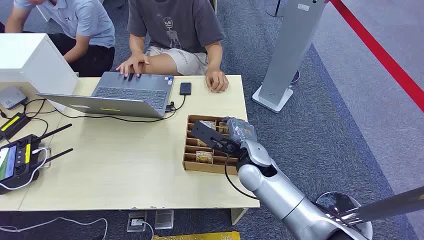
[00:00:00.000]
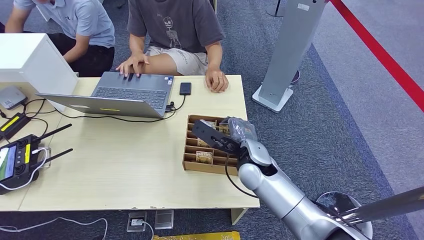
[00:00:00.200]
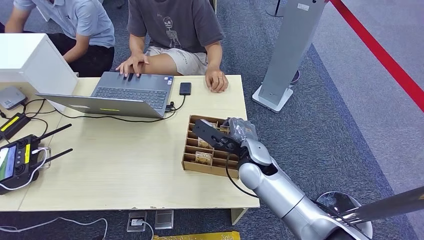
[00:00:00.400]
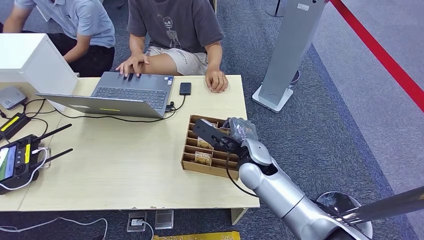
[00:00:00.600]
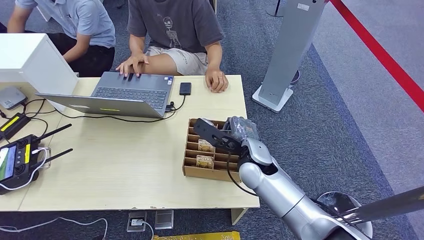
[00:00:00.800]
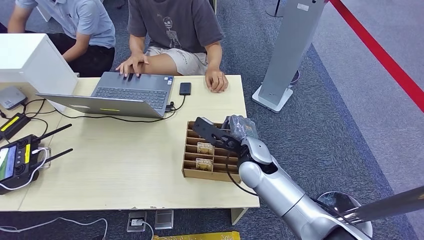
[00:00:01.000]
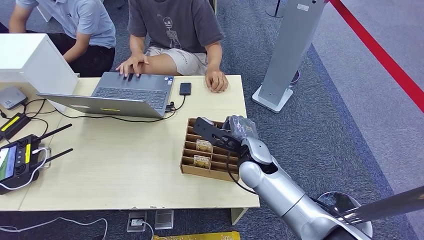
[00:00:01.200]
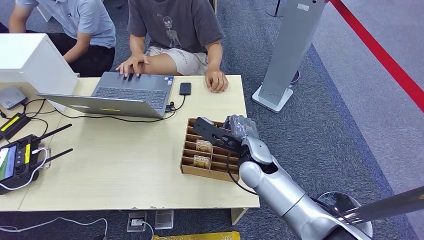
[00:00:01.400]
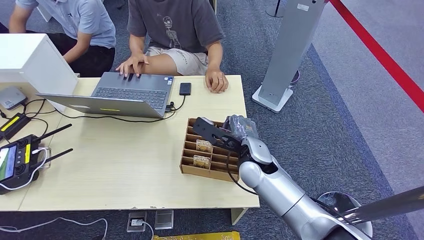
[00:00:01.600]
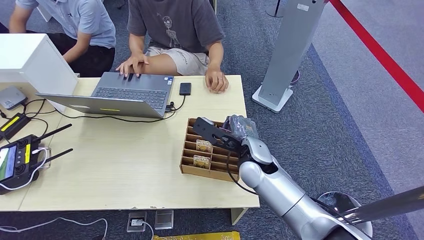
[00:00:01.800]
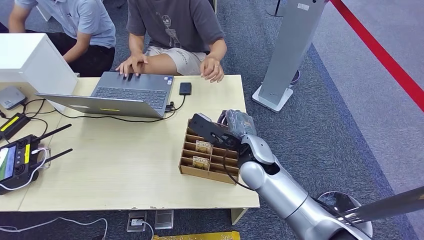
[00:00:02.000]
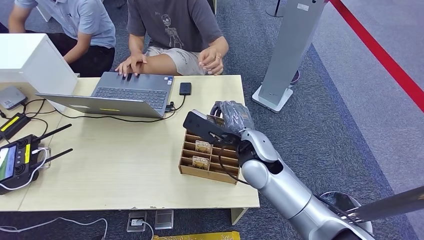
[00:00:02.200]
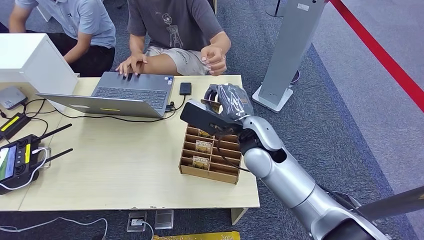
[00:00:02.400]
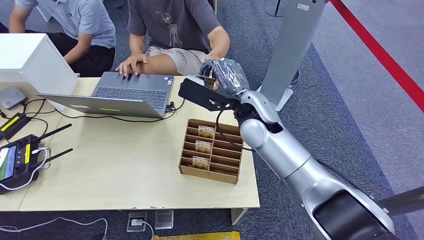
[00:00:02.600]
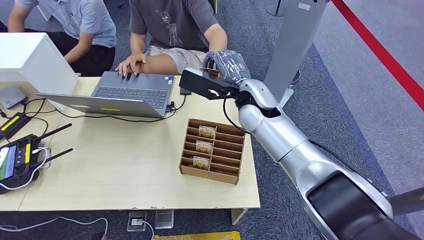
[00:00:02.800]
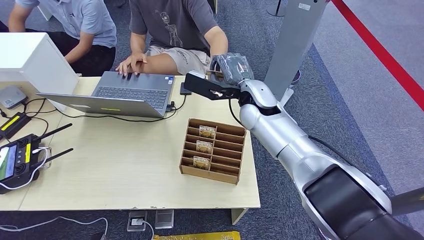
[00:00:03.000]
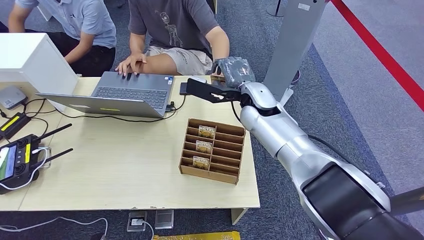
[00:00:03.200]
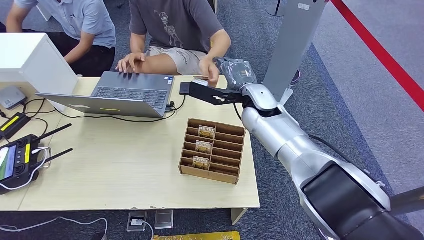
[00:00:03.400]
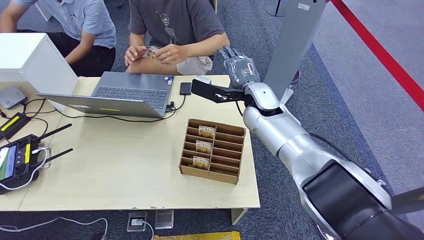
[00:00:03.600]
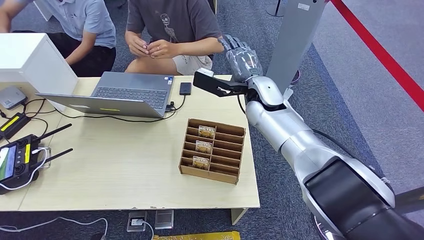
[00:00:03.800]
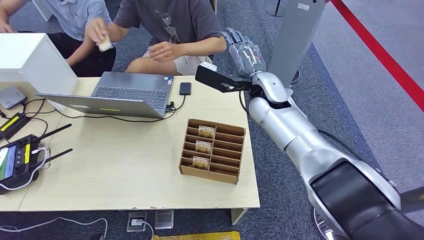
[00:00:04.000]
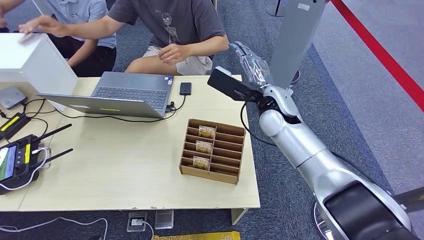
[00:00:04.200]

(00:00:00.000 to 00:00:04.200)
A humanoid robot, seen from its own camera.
Step, 00:00:00.000 - 00:00:02.200: Pick up the key card from the card box.
Step, 00:00:02.400 - 00:00:04.200: Hand the key card to the target.
00:00:01.400 - 00:00:02.800: The right hand is displaced upward and forward by about 15 cm.
00:00:02.800 - 00:00:04.200: The right hand moves to the right, approximately 5 cm.
